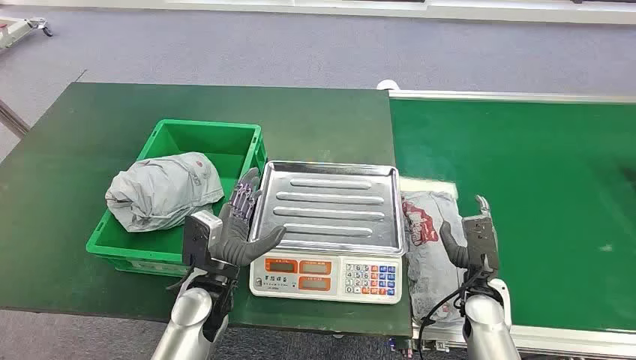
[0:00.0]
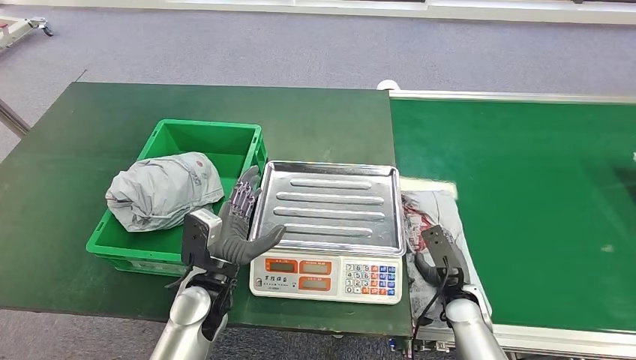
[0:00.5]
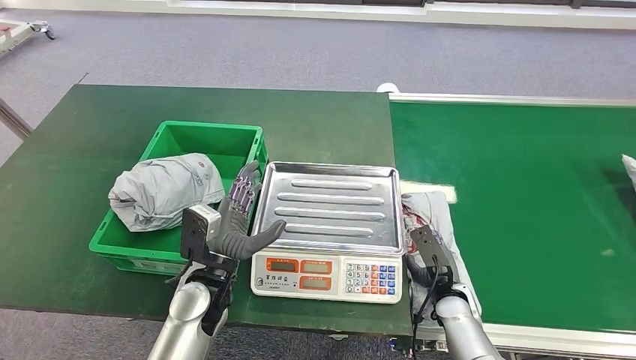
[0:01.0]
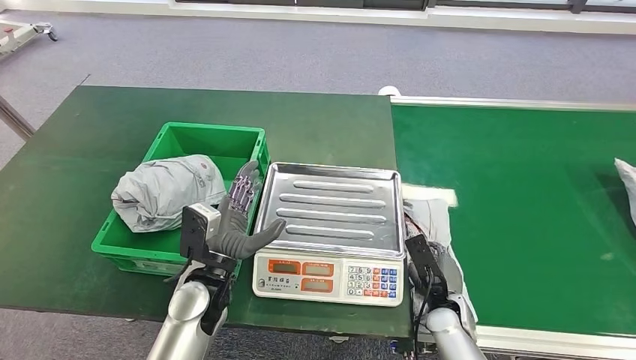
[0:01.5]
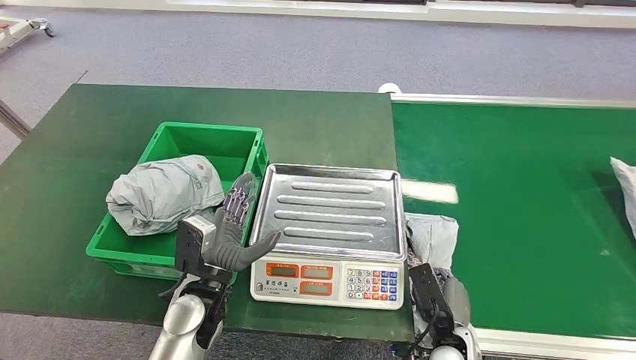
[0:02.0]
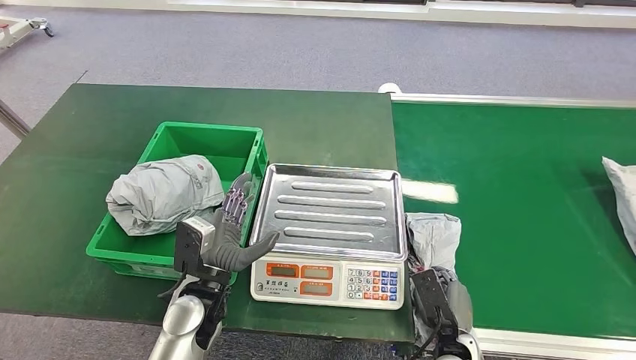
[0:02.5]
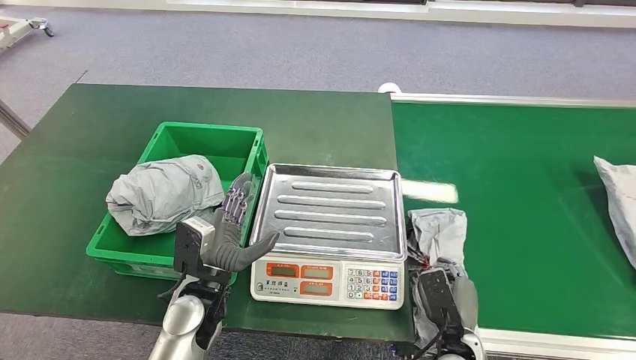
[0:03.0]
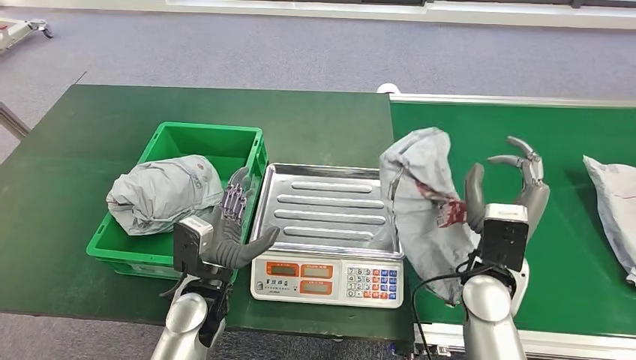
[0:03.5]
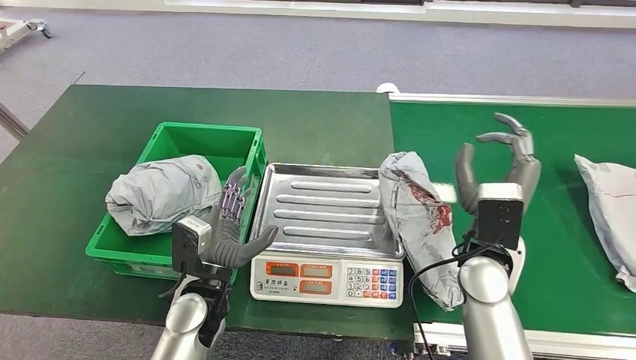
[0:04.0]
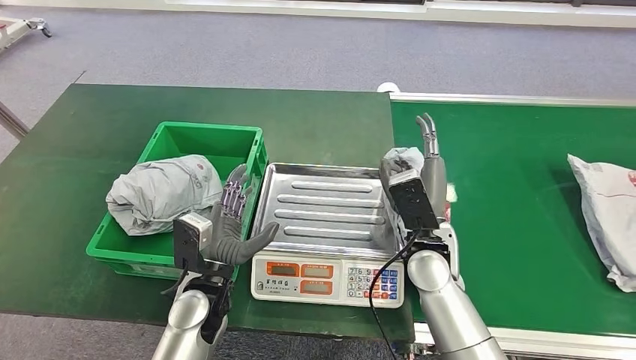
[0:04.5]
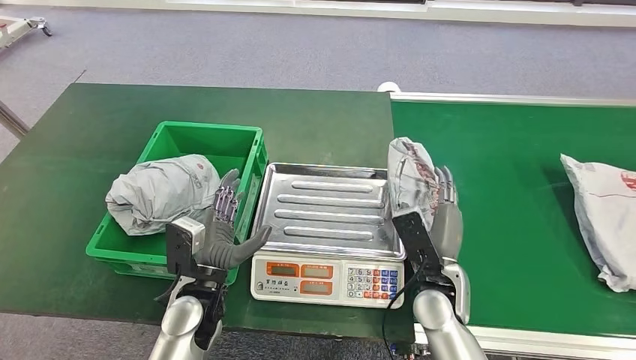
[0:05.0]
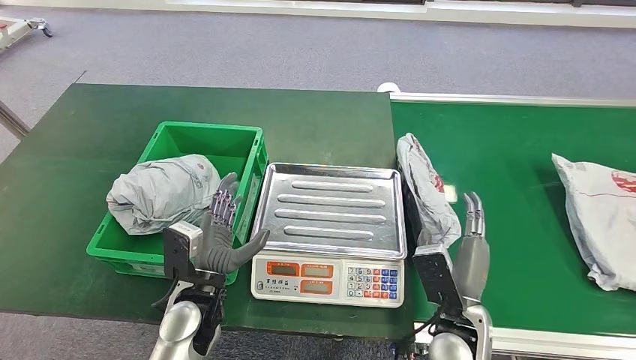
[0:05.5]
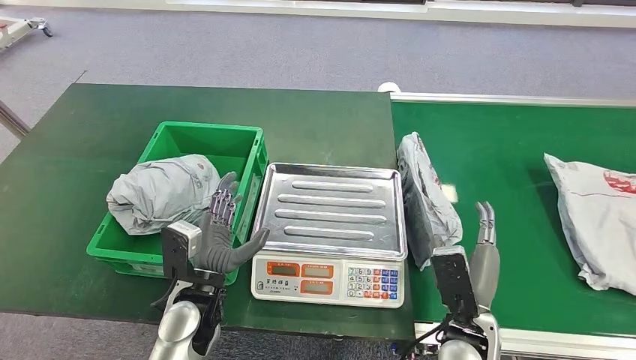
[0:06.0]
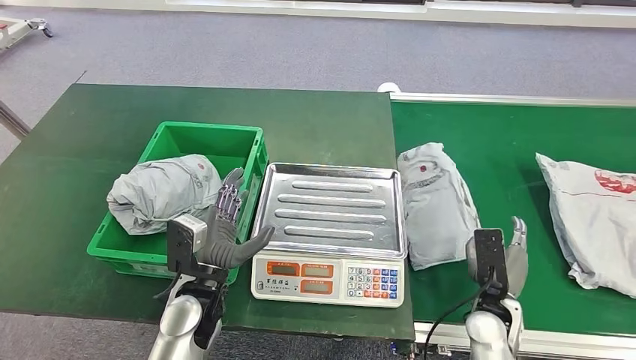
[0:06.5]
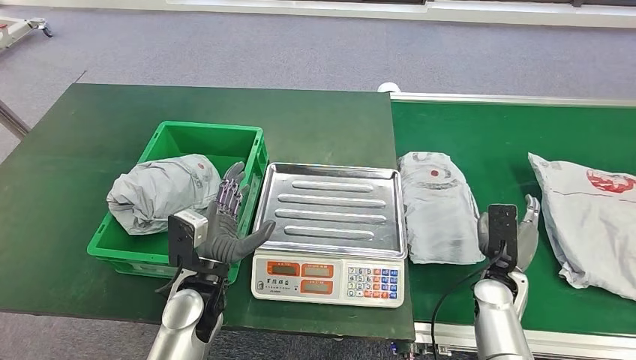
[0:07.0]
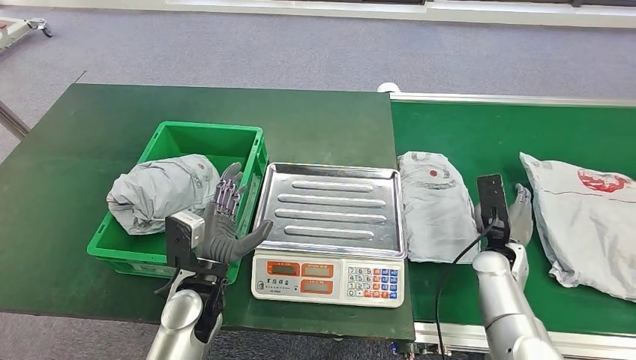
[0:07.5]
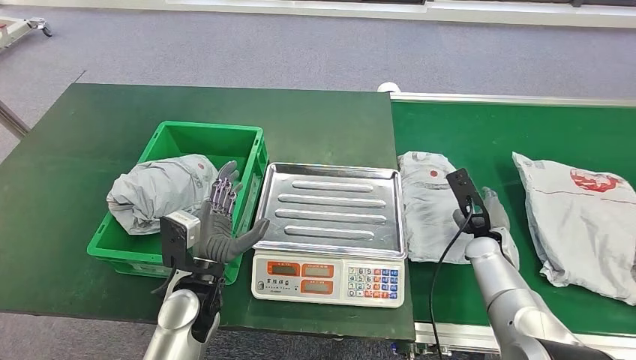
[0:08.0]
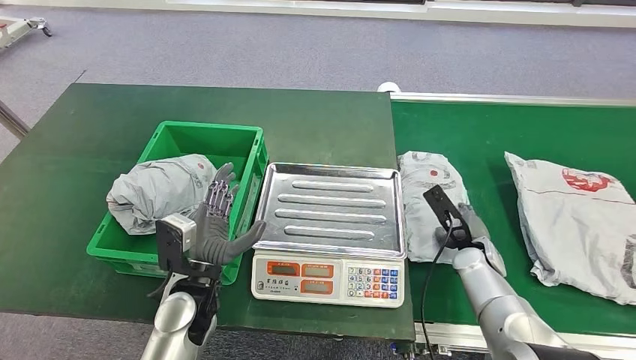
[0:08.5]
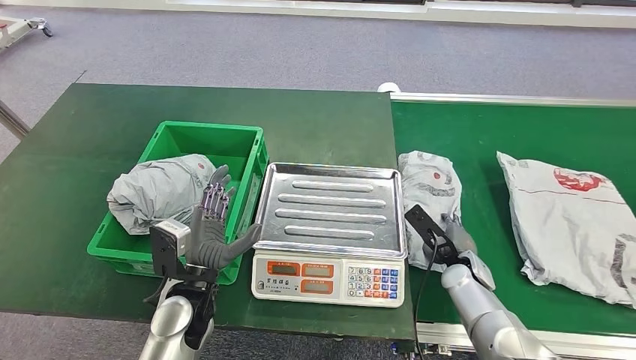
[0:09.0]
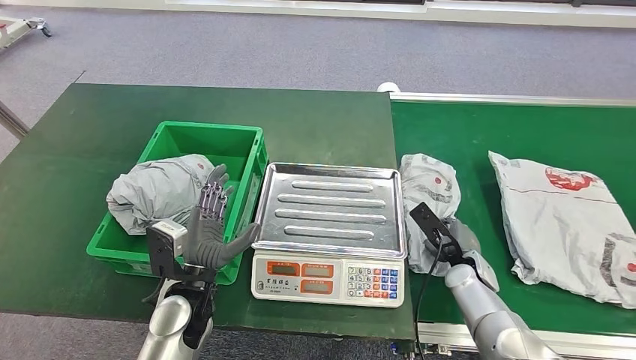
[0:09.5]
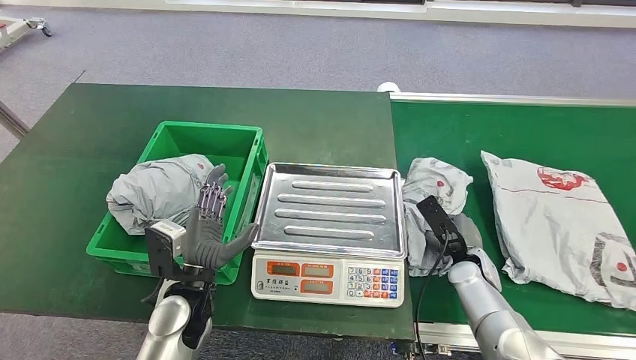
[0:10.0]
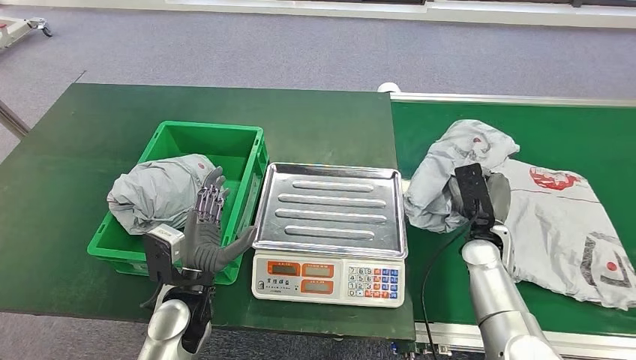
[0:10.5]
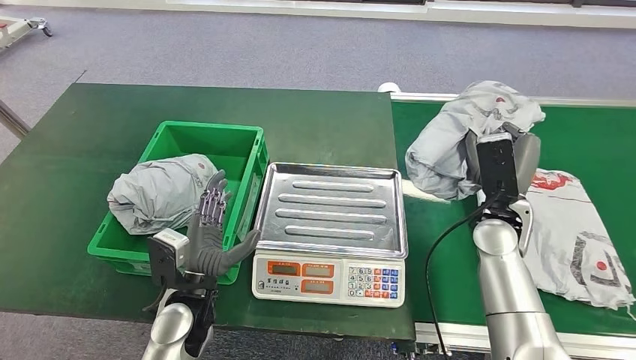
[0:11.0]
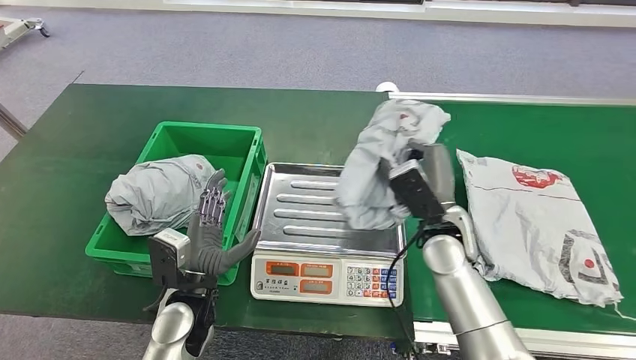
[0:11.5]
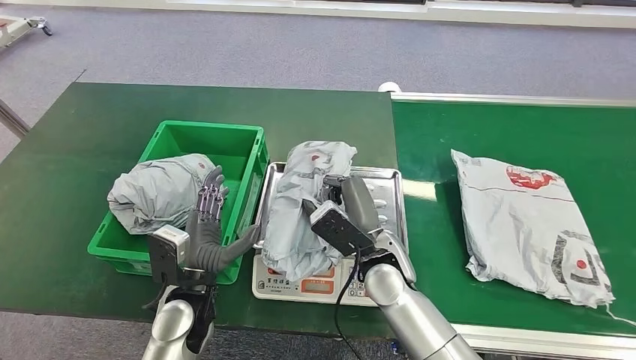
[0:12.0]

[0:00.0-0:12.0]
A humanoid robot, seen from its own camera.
Step, 0:00.0 to 0:11.0: Pick up the package from the conveyor belt.
0:02.0 to 0:04.0: The right hand travels upward and forward by roughly 25 cm.
0:04.0 to 0:06.0: The right hand heads backward and downward, covering some 15 cm.
0:06.0 to 0:08.0: The right hand heads forward and to the right, covering roughly 20 cm.
0:08.0 to 0:10.0: The right hand shifts by roughly 5 cm.

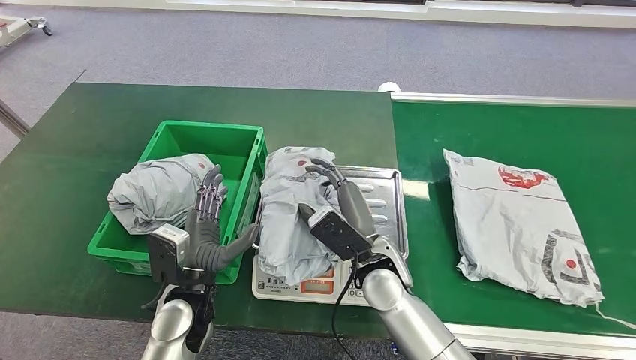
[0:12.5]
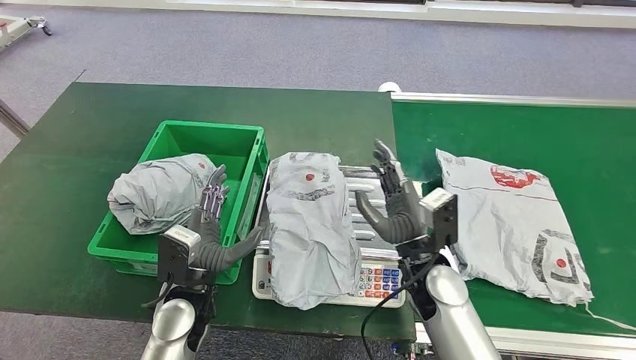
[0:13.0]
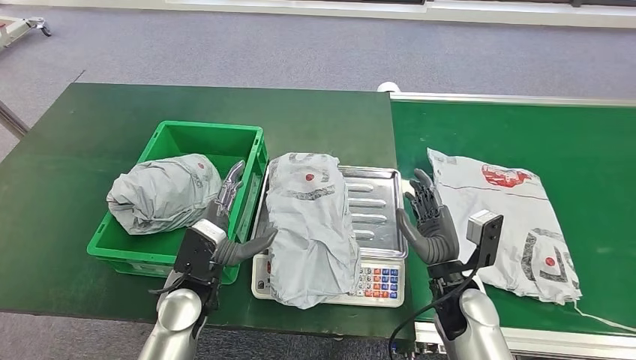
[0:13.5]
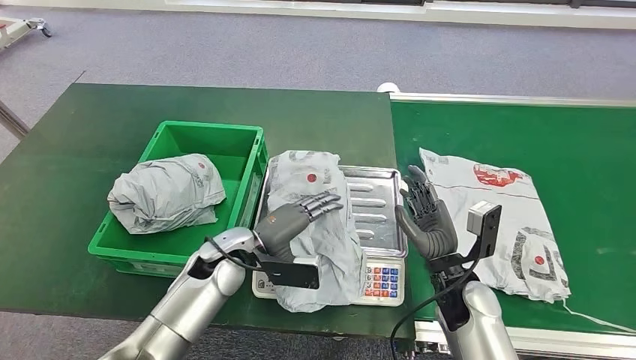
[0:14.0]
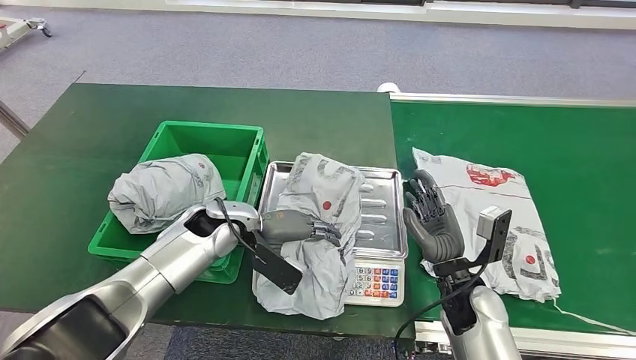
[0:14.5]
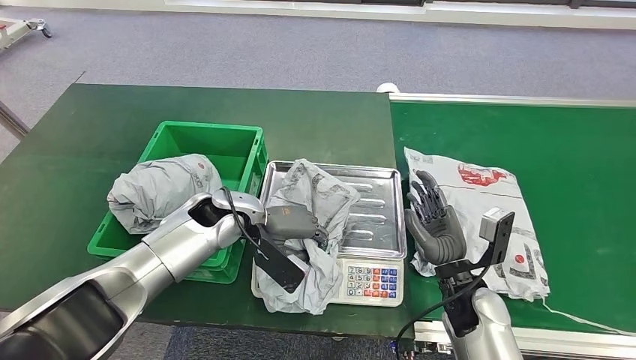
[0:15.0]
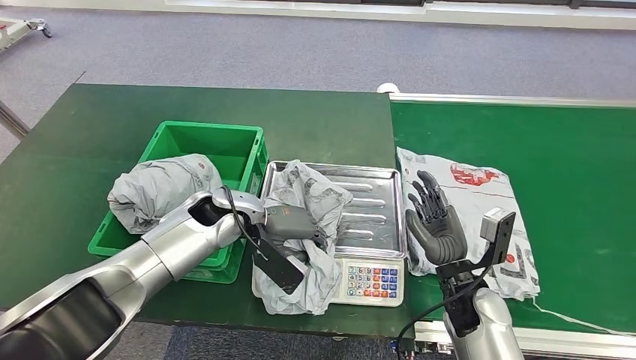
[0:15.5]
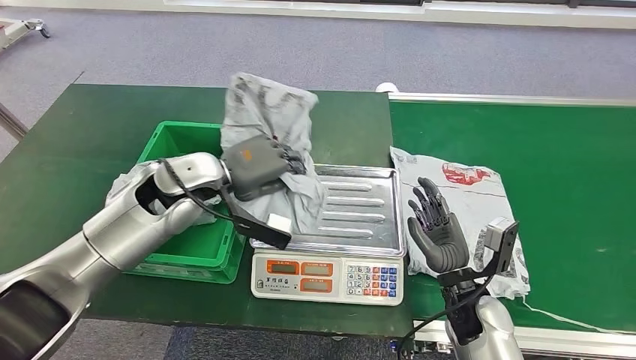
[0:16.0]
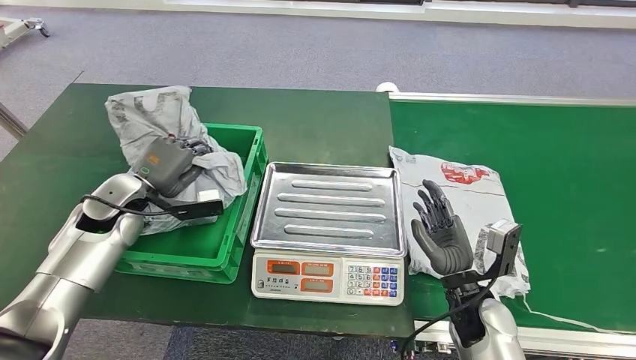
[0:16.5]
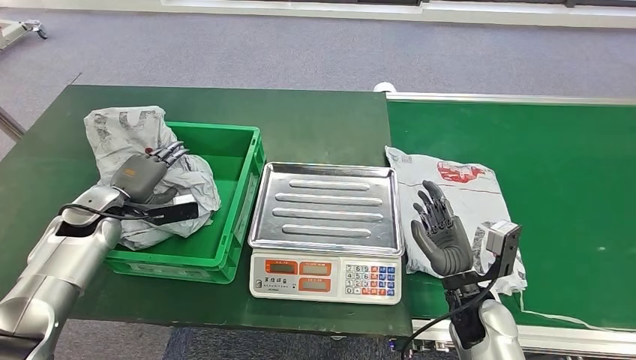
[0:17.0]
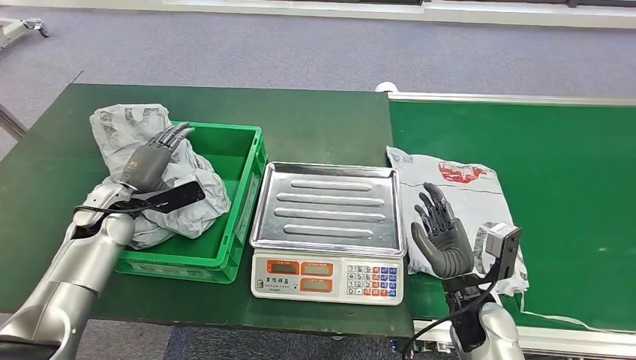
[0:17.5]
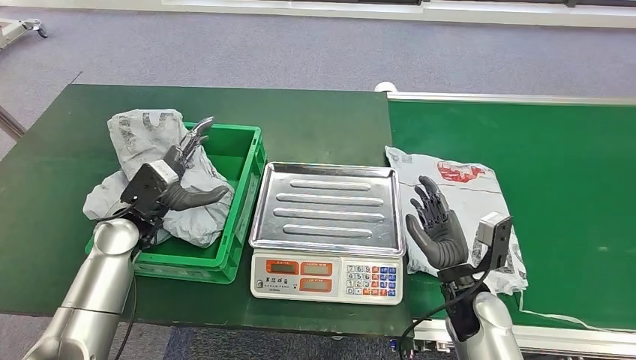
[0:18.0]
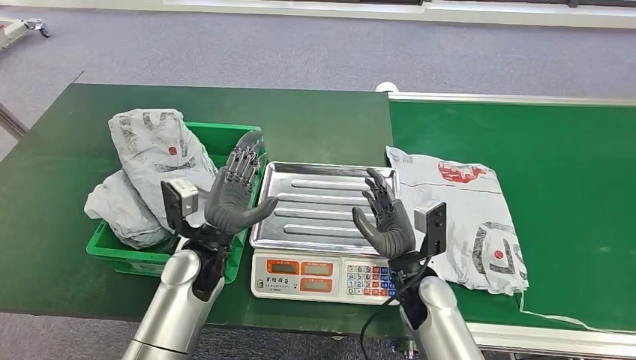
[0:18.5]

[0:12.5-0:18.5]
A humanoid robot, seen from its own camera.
Step, 0:14.0 to 0:16.0: Pick up the package from the inbound machine.
Step, 0:16.5 to 0:18.5: Place the package into the parcel locker.

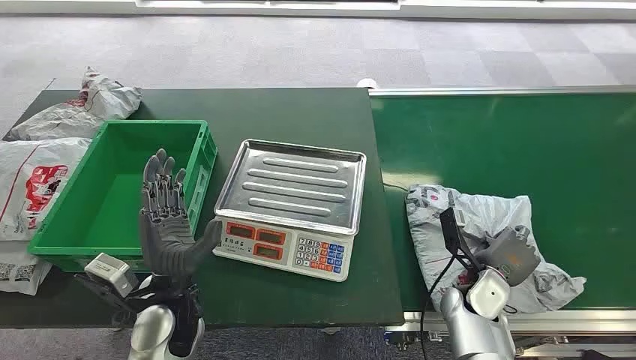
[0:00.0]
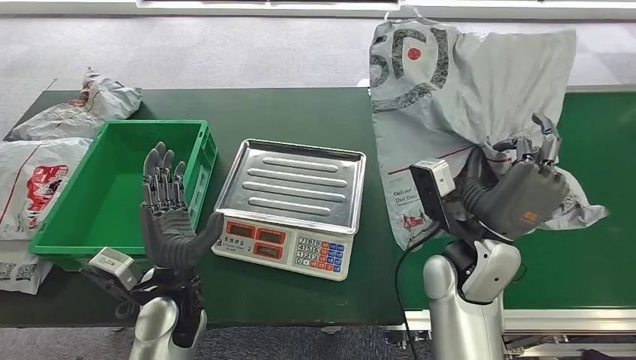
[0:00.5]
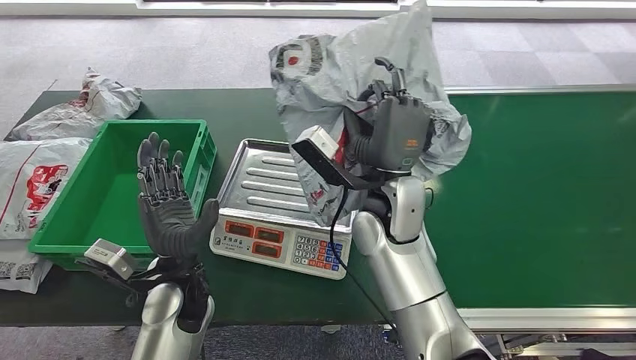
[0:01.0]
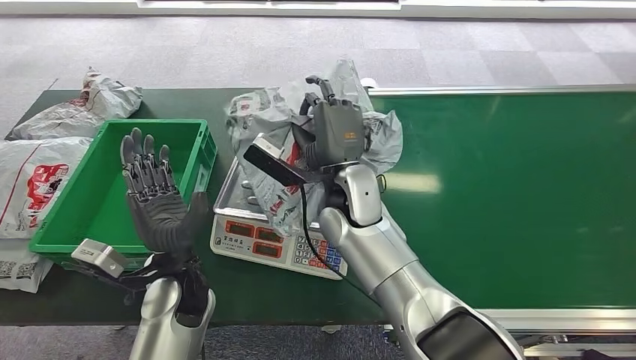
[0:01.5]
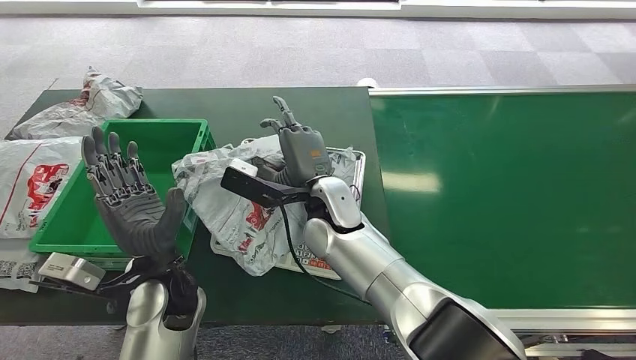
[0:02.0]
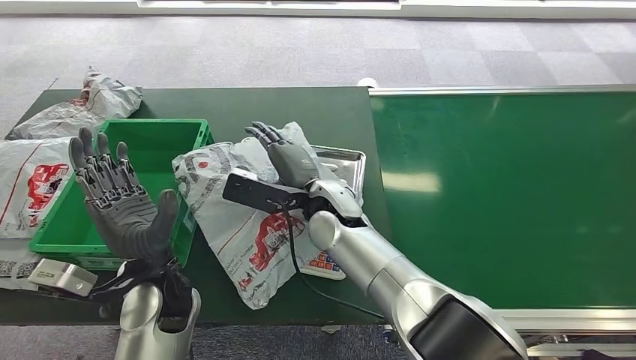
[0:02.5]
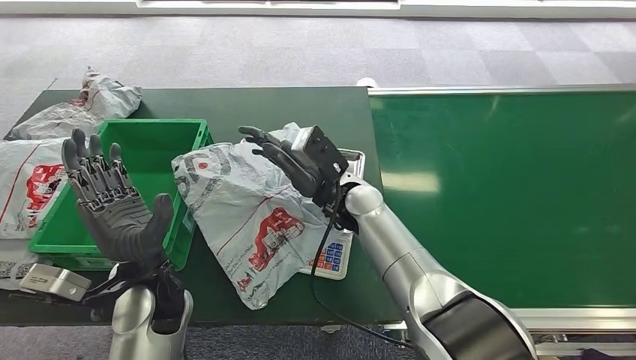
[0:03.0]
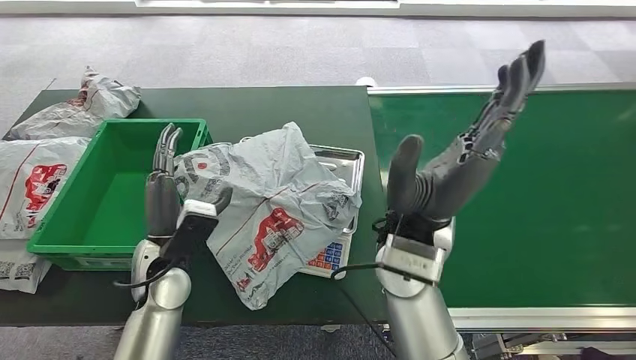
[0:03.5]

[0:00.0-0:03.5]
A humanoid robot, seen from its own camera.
Step, 0:00.0 to 0:01.0: Pick up the package from the conveyor belt.
